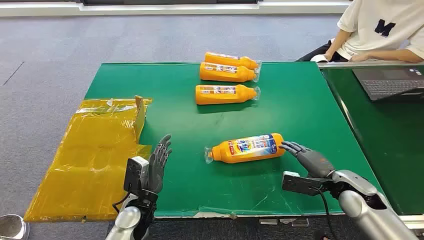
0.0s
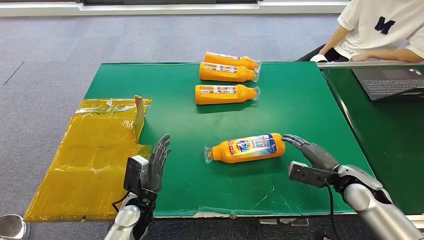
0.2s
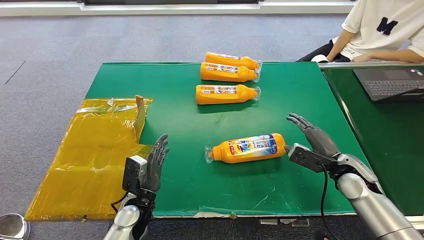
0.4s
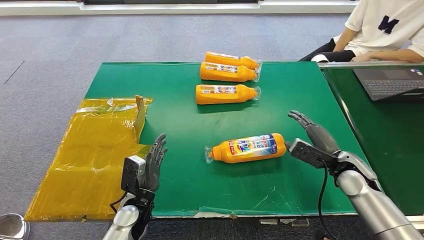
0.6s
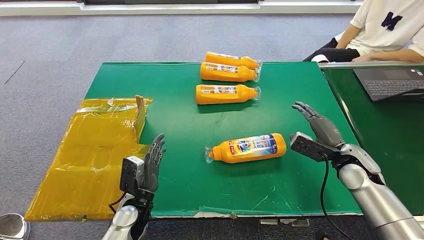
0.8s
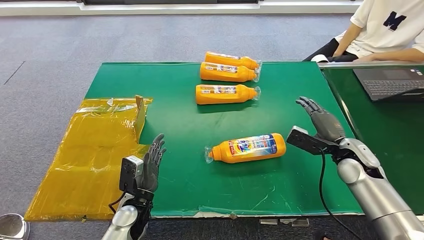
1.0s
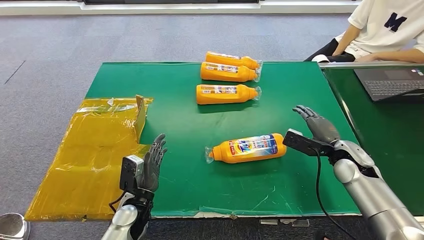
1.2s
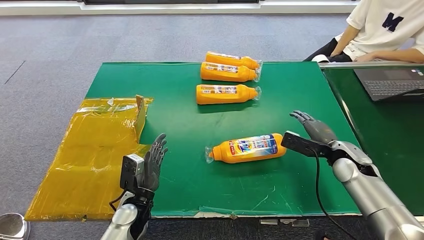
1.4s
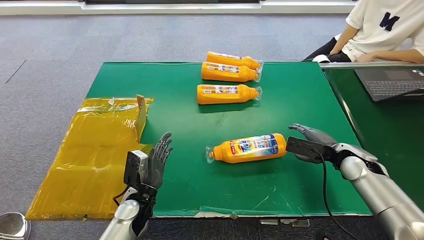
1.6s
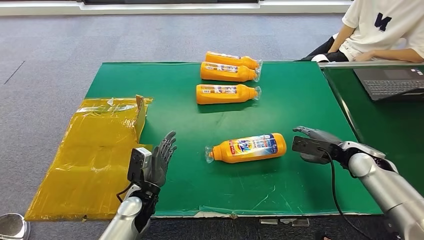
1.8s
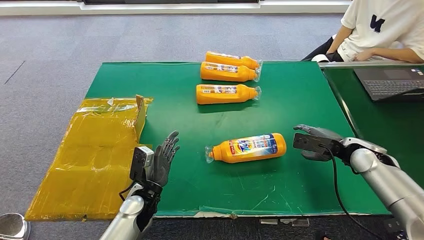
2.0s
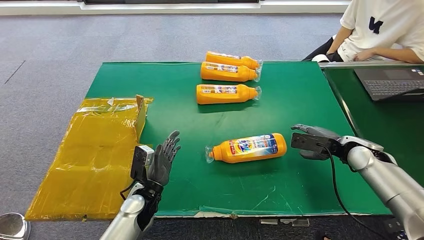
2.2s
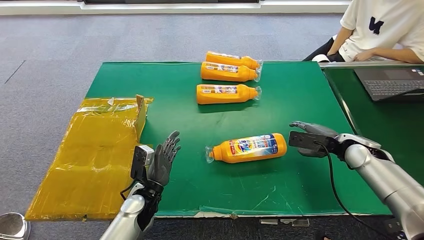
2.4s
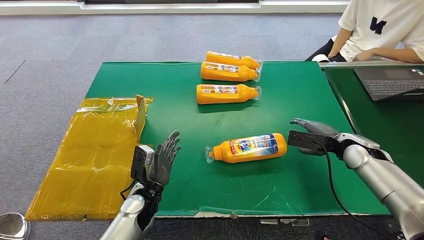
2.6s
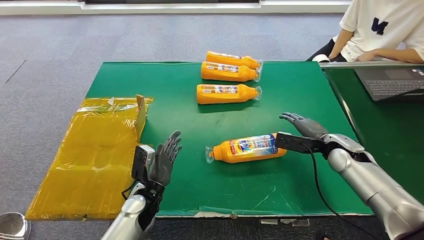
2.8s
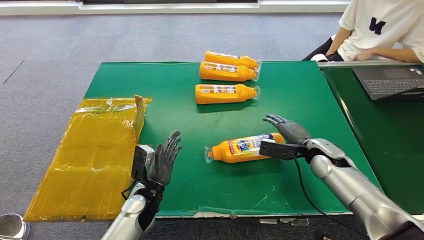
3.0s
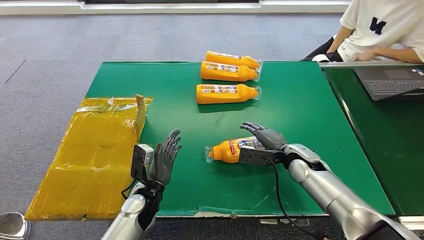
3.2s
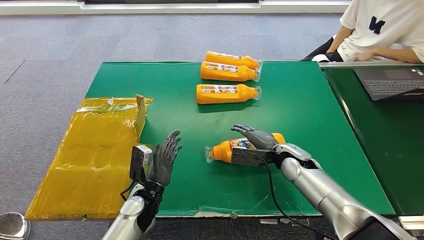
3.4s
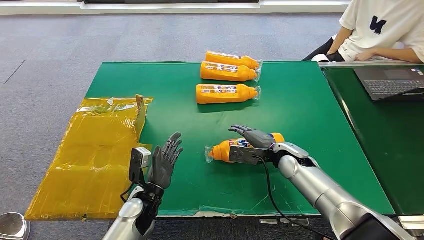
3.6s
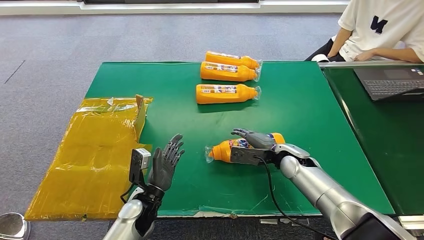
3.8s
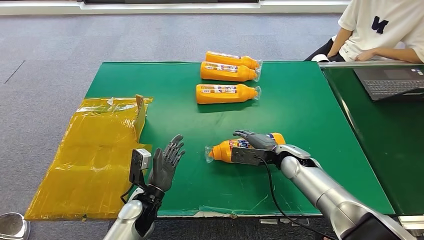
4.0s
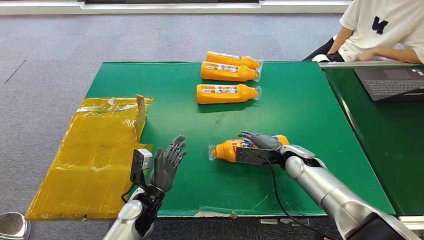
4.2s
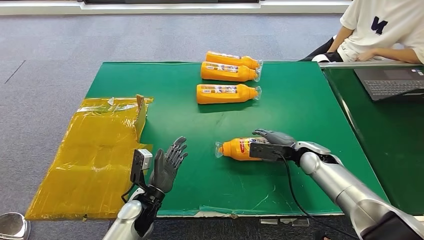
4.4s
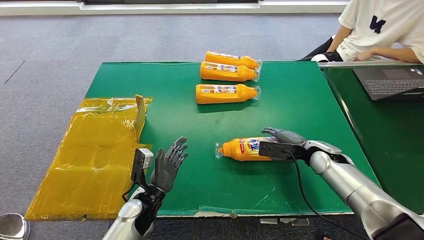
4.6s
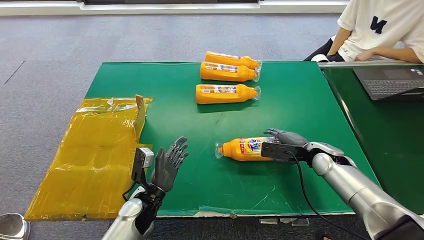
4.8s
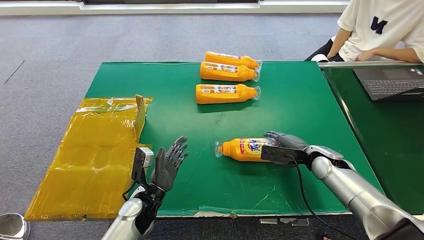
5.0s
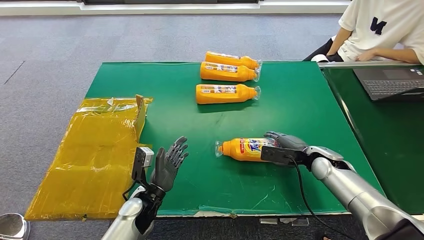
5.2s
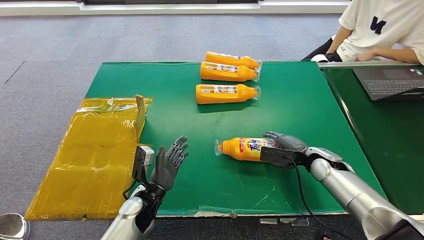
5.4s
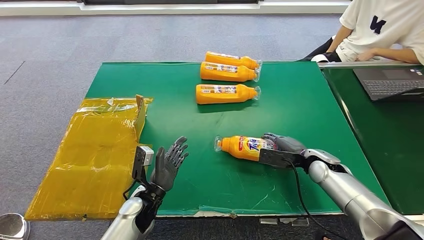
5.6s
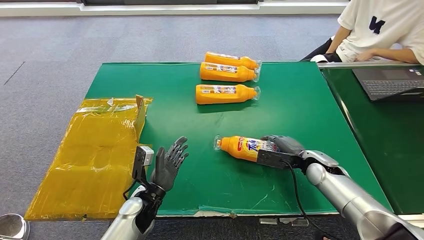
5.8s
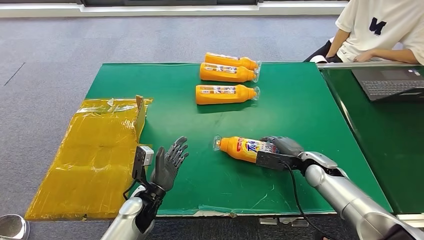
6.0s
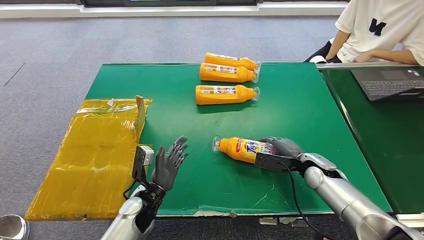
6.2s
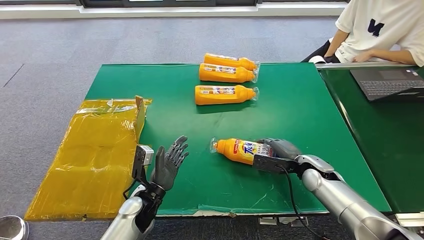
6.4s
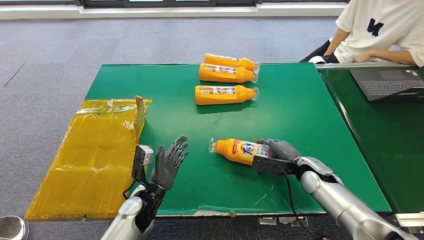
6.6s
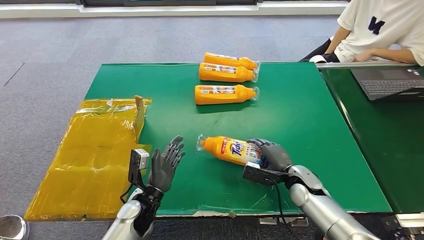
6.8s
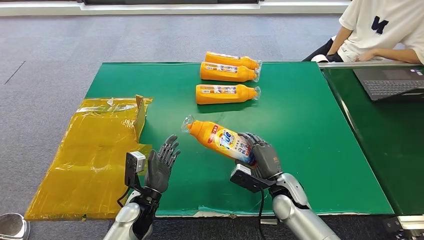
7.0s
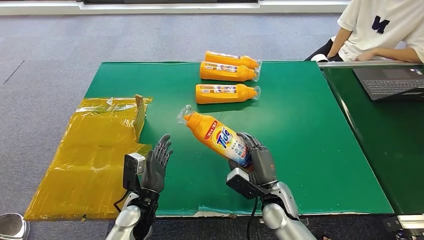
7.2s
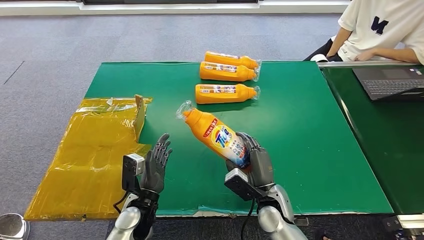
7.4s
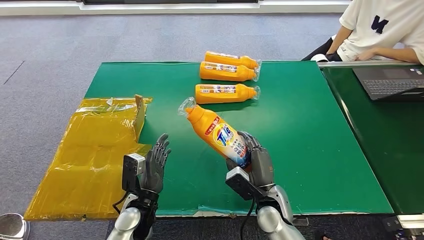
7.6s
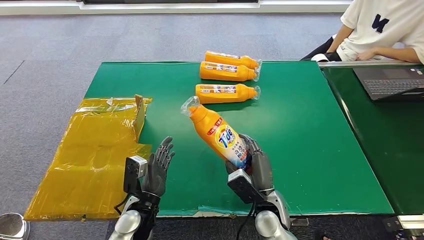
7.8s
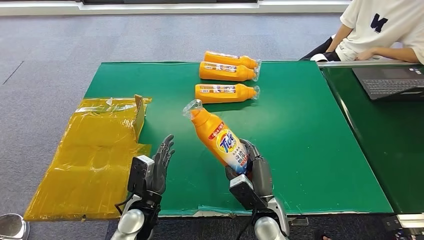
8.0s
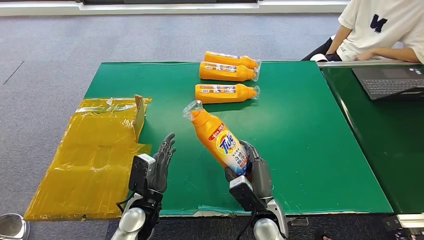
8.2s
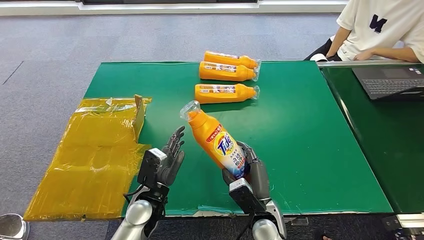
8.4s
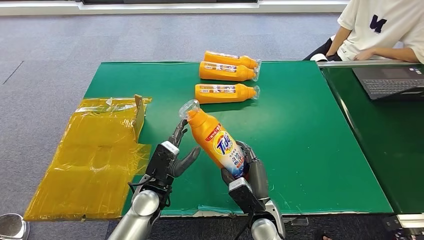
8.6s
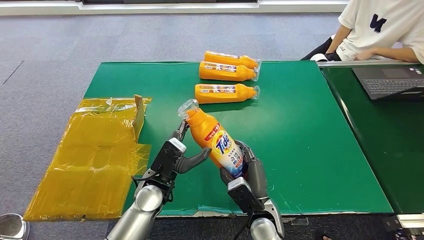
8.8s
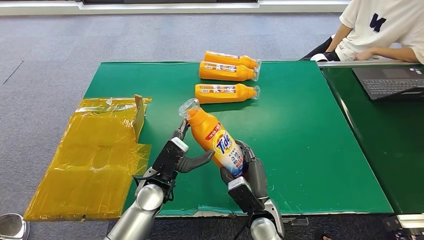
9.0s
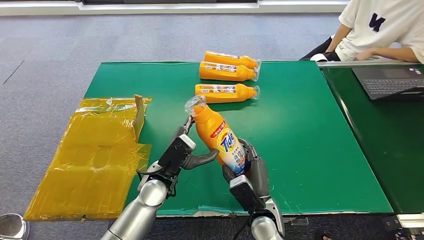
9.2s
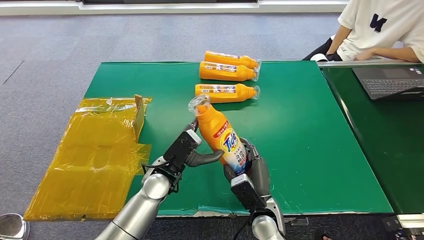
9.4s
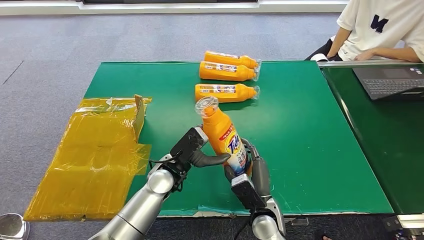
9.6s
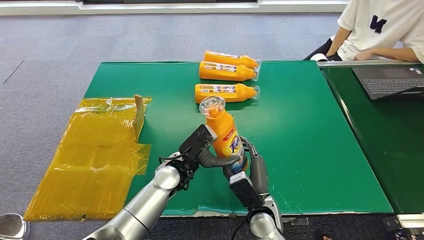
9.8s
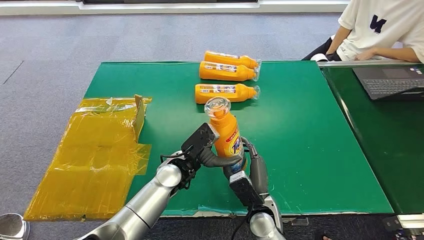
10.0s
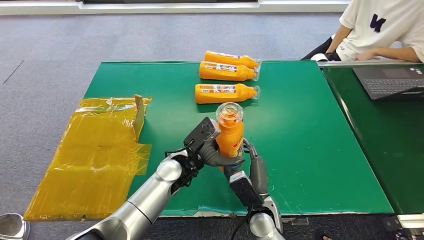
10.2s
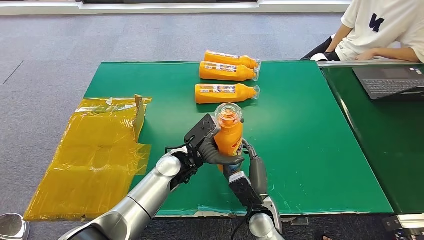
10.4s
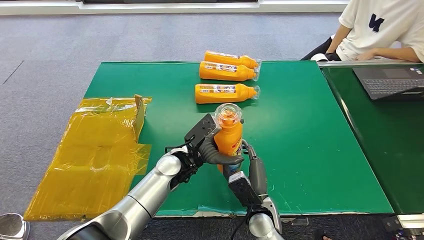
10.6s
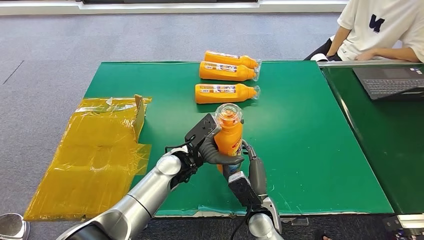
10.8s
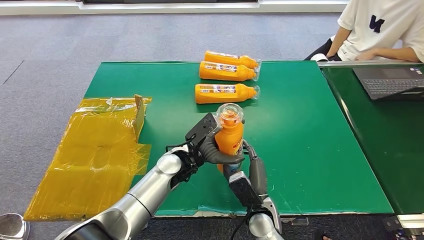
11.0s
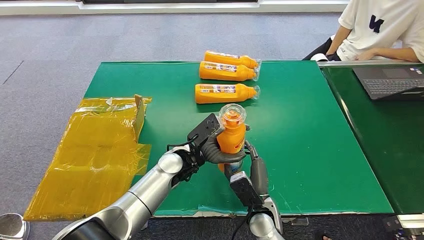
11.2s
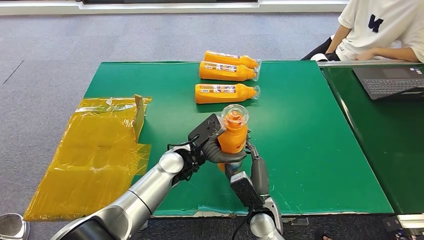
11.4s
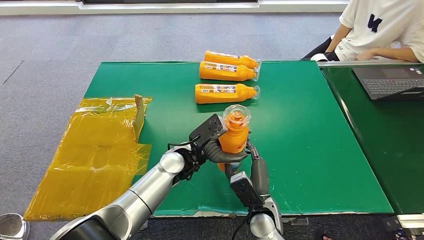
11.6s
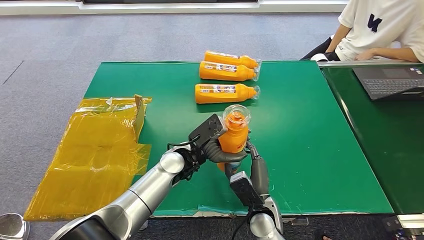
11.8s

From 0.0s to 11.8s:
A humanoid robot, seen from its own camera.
Step, from 0.0s to 7.4s: Pick up the bottle from the table.
From 1.4s to 3.0s: The right hand shifts about 5 cm to the left.
From 3.0s to 4.4s: The right hand goes to the left and returns, about 10 cm each way.
From 4.4s to 6.0s: There are only small adjustments of the hands.
From 7.4s to 8.8s: The left hand travels upward by approximately 5 cm.
From 8.8s to 10.4s: The left hand heads to the right and forward, covering approximately 10 cm.
From 10.4s to 11.8s: There are only small adjustments of the hands.

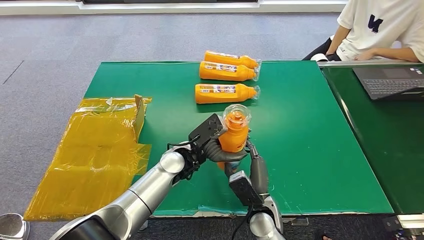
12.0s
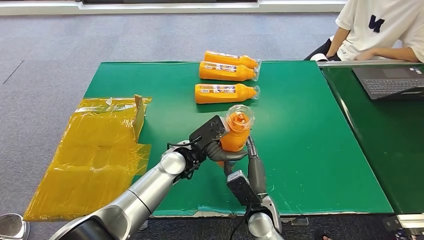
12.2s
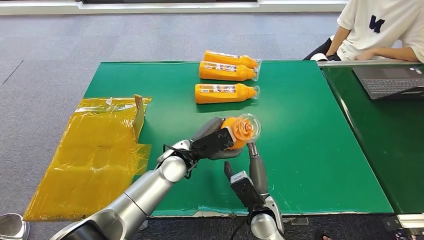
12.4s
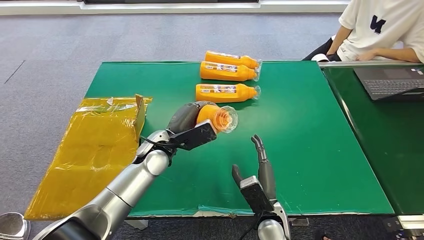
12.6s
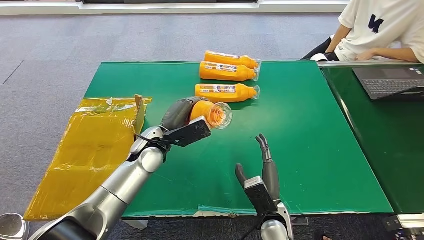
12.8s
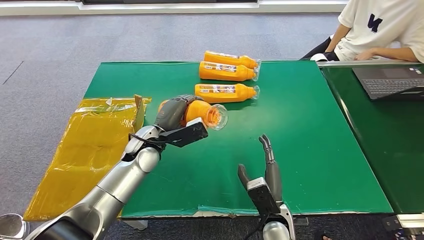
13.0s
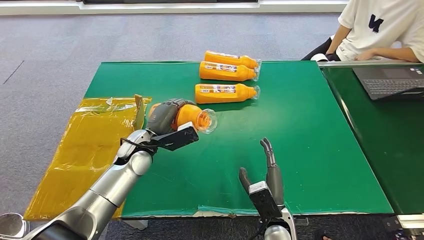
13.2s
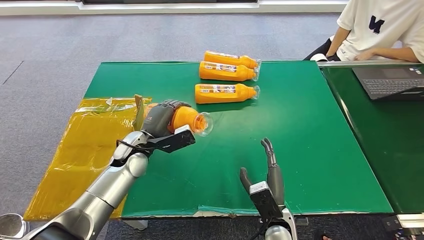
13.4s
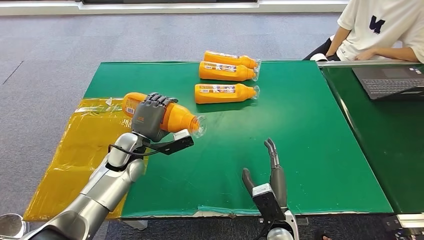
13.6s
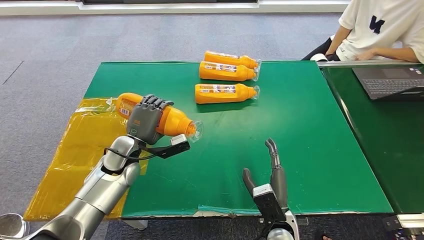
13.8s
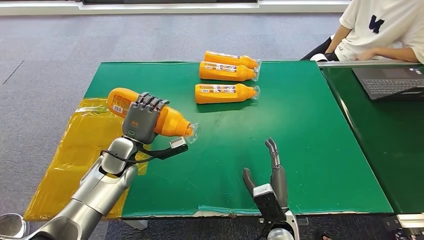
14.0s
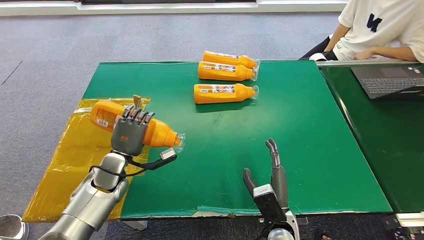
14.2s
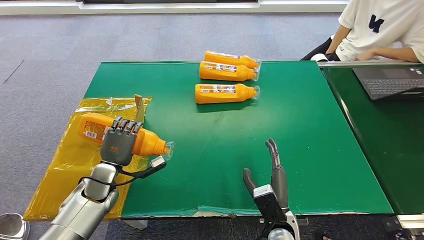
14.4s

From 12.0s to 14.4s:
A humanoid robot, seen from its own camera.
Step, from 12.0s to 14.4s: Turn the bottle to the front side.
From 12.0s to 13.2s: The left hand travels to the left by about 15 cm.
From 13.2s to 14.4s: The left hand goes some 15 cm to the left, downward and backward.

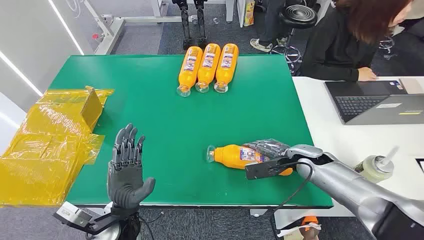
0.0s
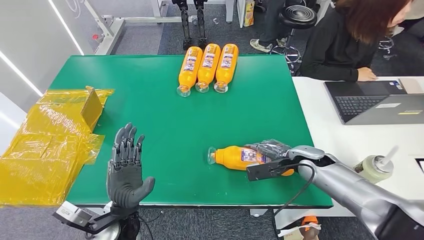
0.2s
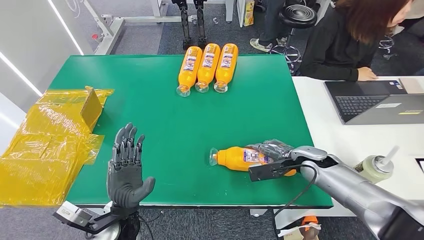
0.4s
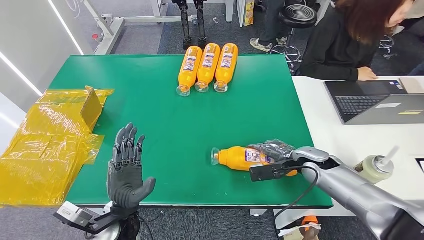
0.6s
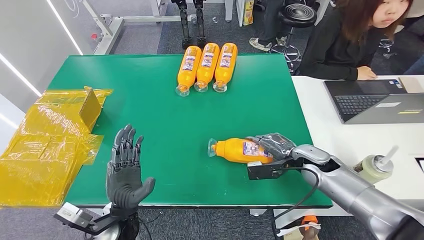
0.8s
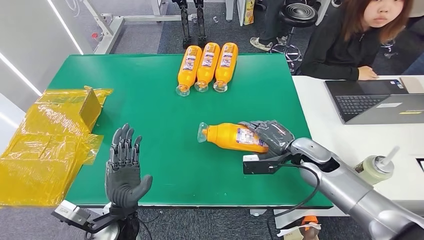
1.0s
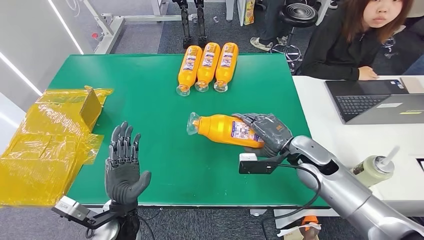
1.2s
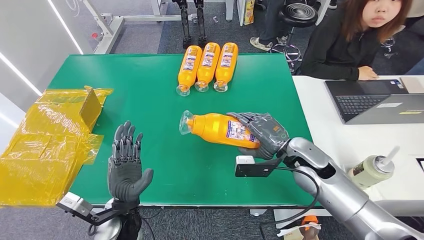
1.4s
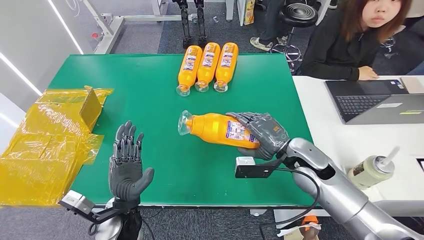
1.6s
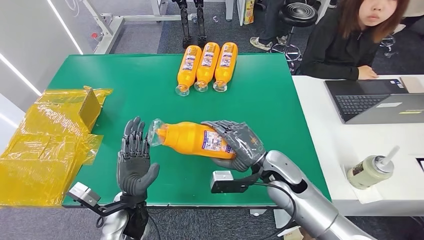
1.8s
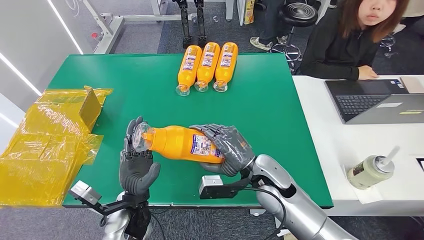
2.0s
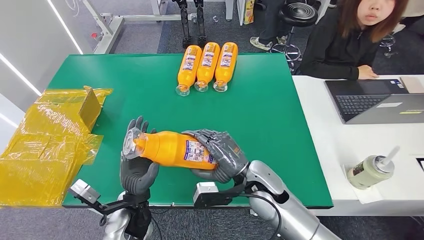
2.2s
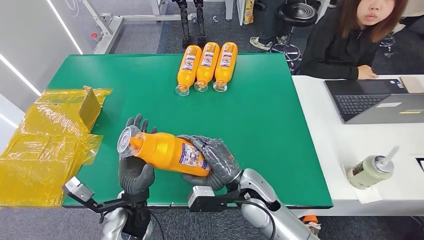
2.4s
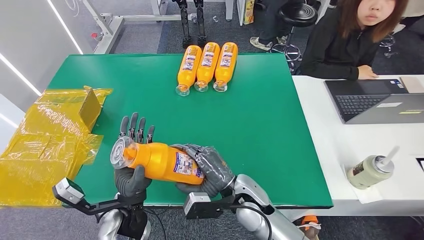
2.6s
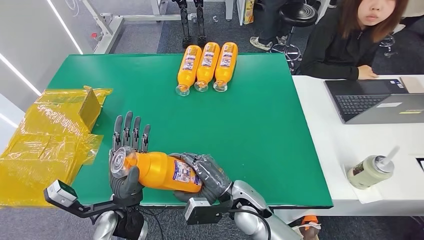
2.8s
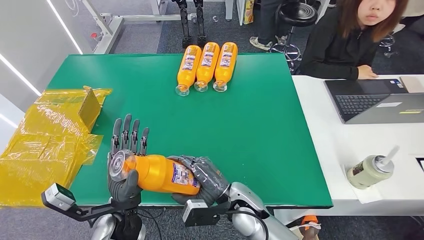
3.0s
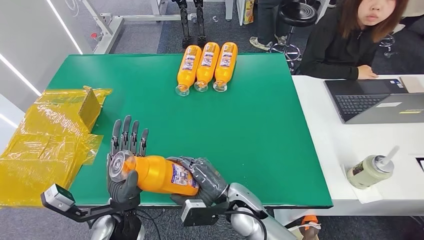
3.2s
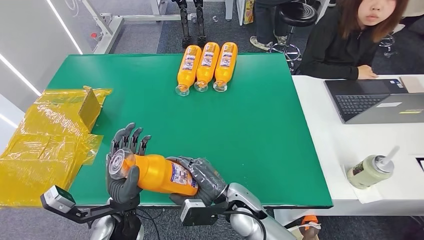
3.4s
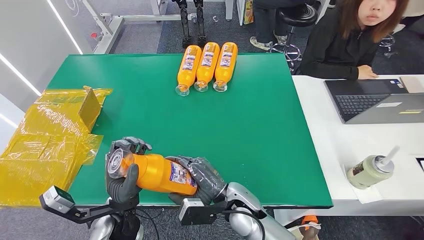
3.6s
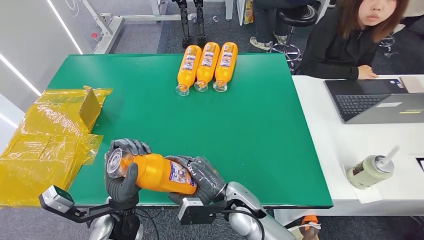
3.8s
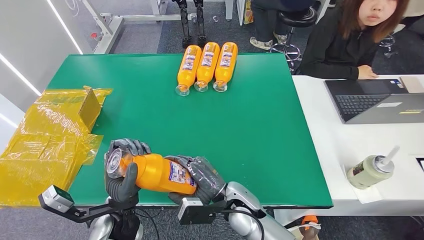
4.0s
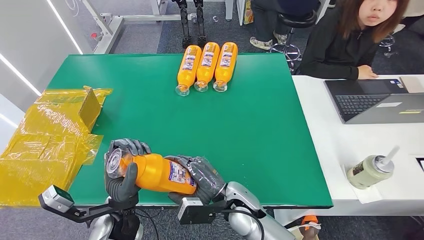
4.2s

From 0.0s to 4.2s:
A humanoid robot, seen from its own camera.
Step, from 0.0s to 2.6s: Pick up the bottle from the table.
From 1.4s to 2.8s: The right hand moves to the left, backward and downward, about 20 cm.
From 2.8s to 4.2s: The hands stay close to where they were, moving slightly.
